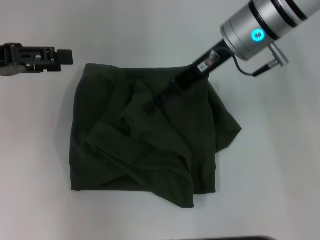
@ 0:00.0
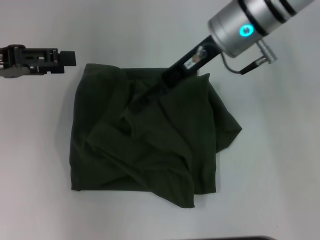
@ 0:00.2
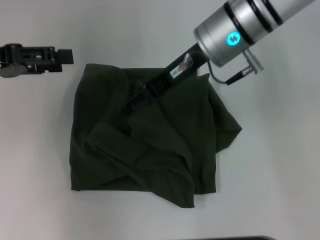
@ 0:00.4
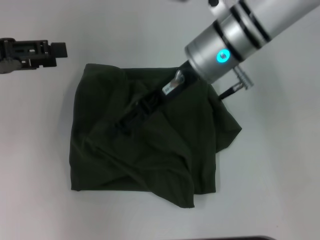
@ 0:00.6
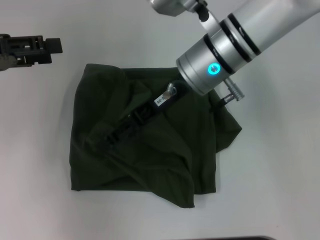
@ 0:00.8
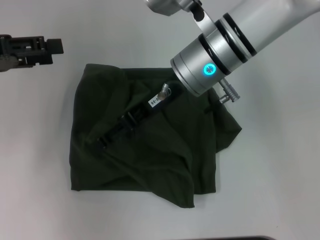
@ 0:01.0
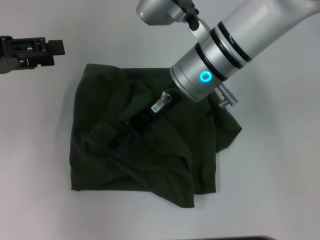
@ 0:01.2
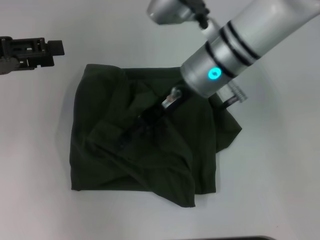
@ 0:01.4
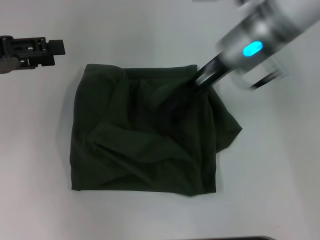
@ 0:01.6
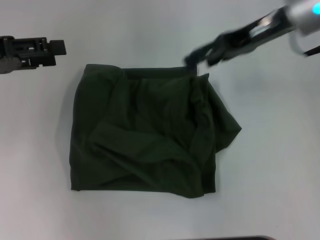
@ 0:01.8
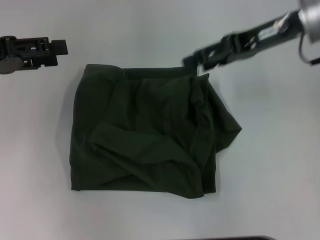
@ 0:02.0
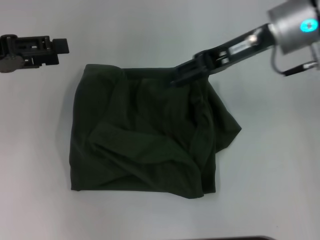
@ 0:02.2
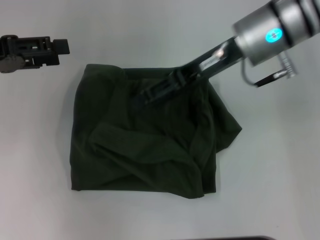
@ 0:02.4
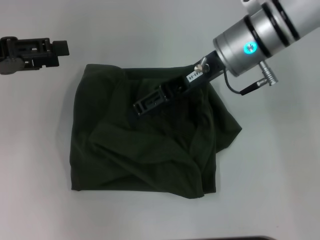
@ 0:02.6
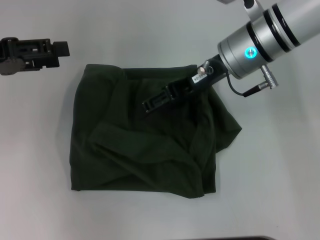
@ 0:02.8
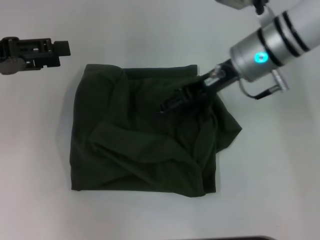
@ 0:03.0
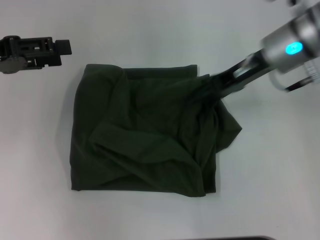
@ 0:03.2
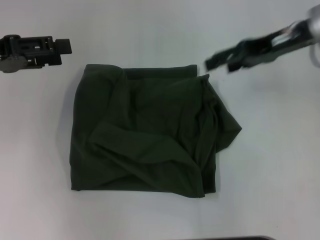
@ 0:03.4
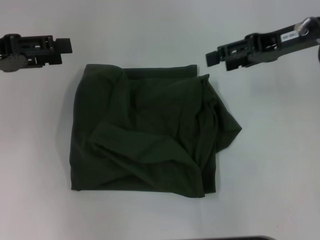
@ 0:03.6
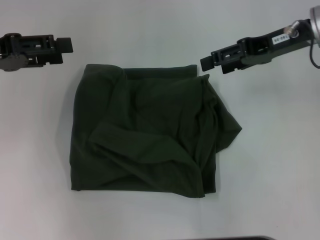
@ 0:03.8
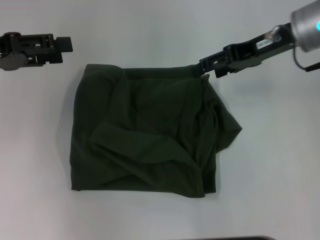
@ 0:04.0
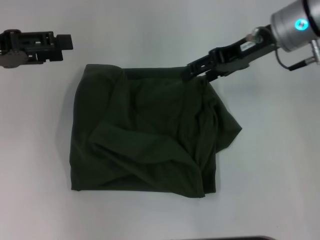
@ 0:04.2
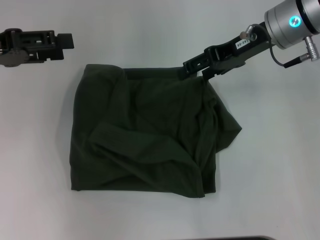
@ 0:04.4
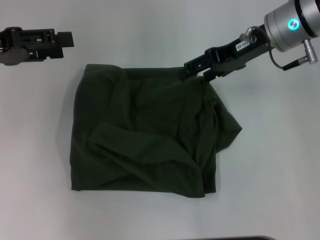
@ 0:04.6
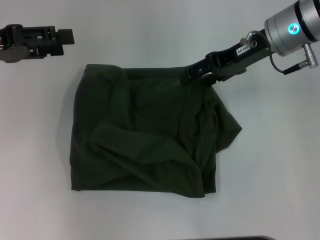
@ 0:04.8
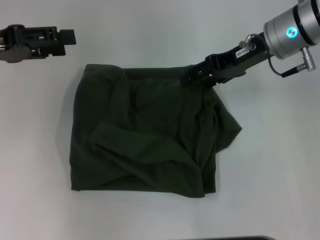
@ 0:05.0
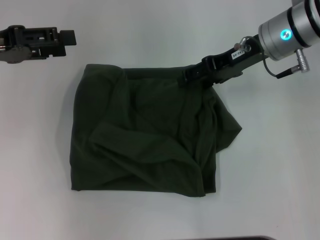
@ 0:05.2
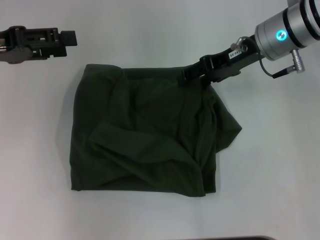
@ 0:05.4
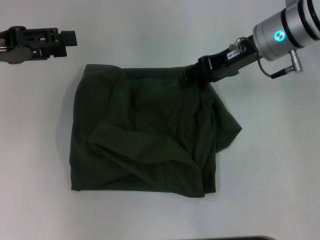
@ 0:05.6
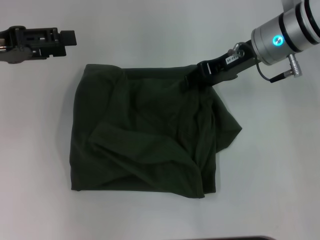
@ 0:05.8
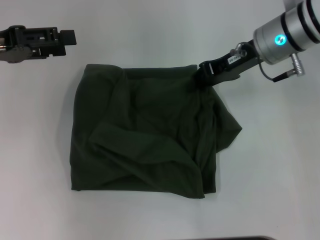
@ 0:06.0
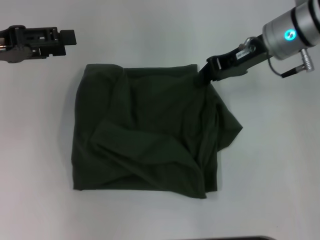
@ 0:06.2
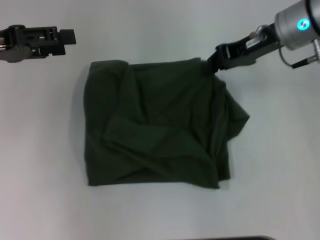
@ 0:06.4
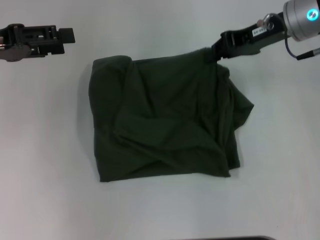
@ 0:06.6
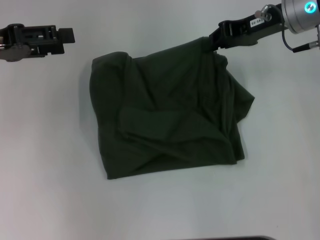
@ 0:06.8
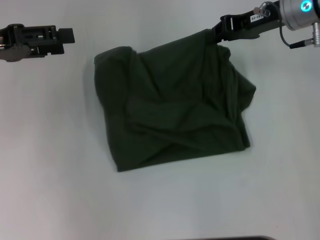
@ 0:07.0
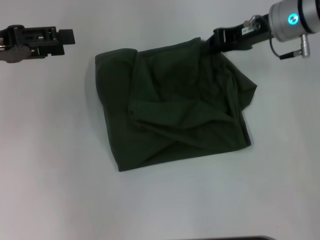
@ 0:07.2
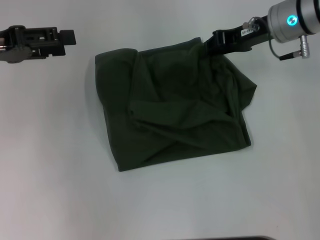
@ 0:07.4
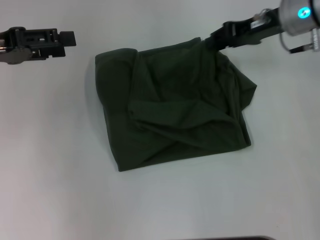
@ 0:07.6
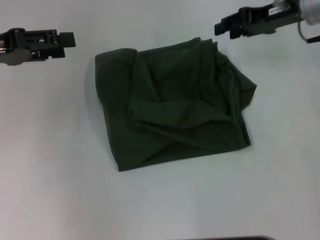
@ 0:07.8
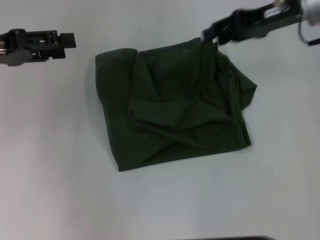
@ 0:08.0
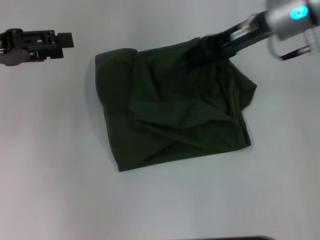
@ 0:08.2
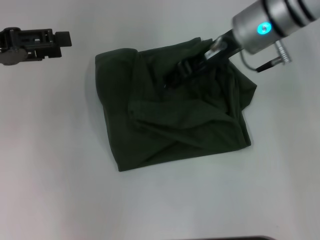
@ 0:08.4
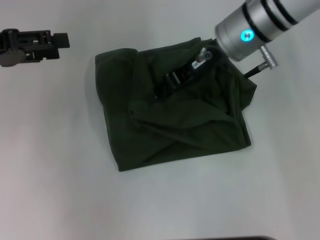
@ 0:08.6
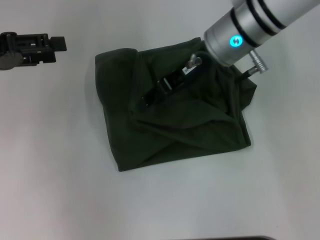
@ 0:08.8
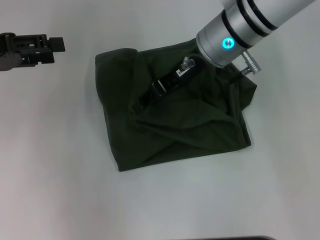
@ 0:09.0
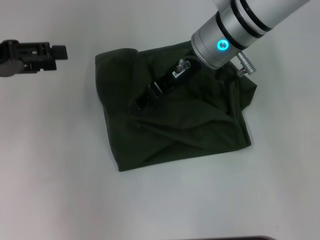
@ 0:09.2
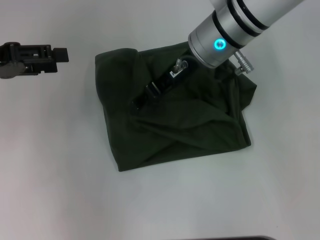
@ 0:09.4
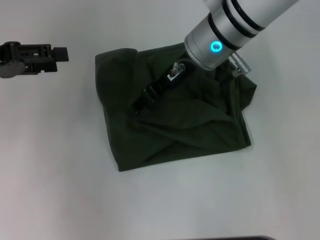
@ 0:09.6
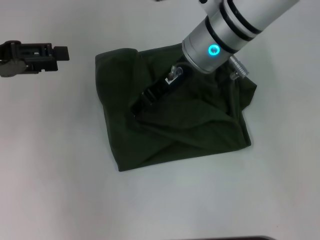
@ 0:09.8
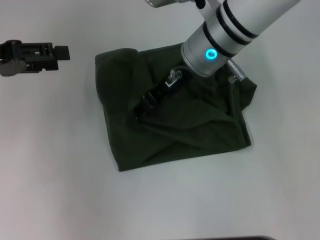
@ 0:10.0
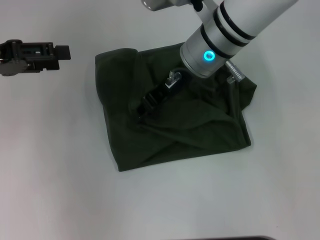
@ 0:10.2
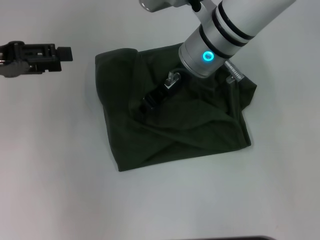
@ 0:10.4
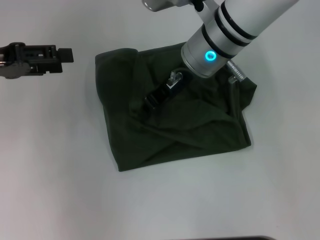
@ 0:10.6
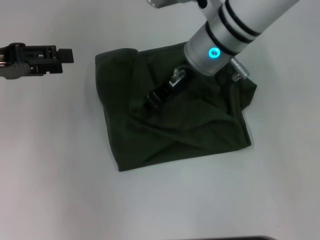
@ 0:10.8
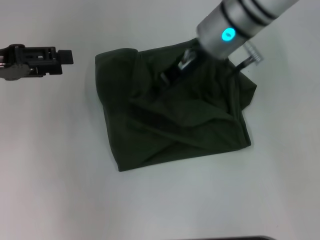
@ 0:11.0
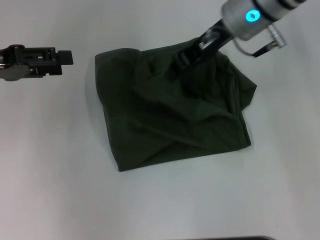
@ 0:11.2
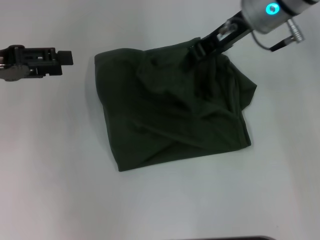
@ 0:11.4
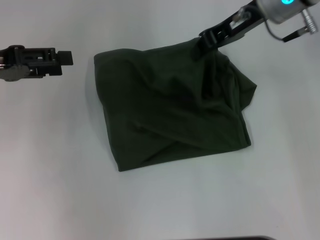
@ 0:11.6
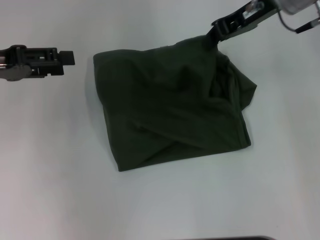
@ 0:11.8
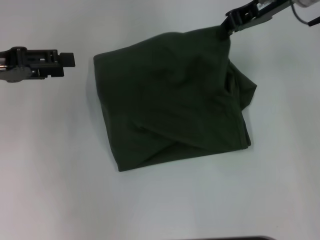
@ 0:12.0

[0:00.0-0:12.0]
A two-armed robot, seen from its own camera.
0:01.6 to 0:03.0: The right gripper goes to the right and returns, about 10 cm each way.
0:04.4 to 0:06.0: The right gripper closes up.
0:07.6 to 0:09.0: The right gripper goes approximately 15 cm to the left, and opens up.
0:09.0 to 0:10.4: The grippers make only small movements.
0:10.4 to 0:12.0: The right gripper moves to the right and upward, roughly 15 cm, and closes up.

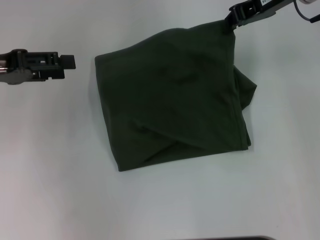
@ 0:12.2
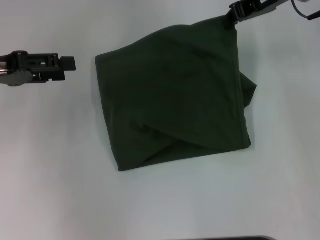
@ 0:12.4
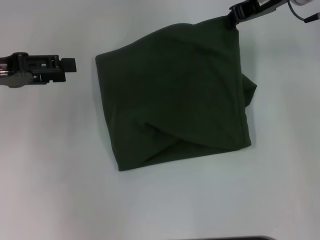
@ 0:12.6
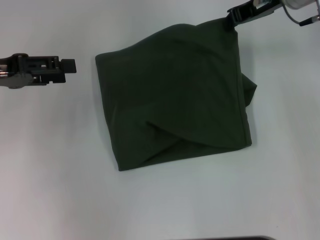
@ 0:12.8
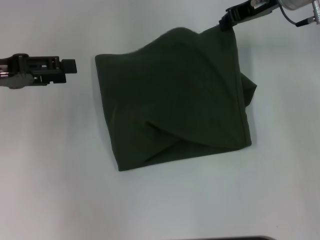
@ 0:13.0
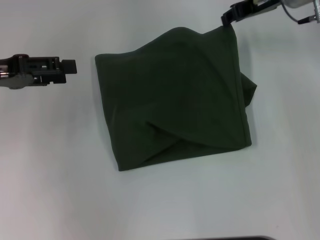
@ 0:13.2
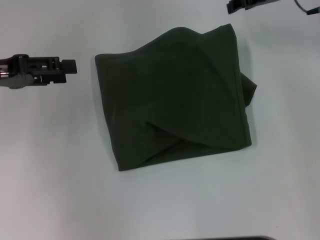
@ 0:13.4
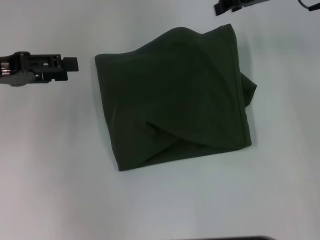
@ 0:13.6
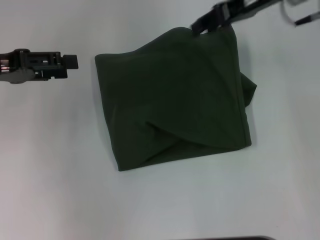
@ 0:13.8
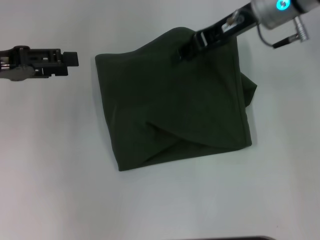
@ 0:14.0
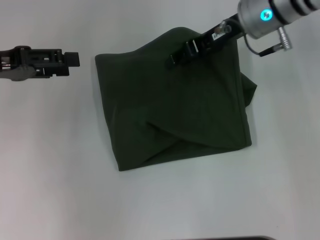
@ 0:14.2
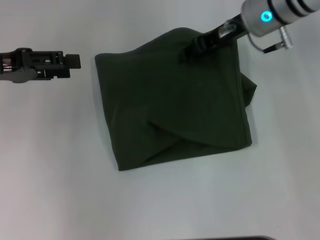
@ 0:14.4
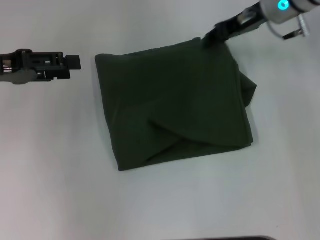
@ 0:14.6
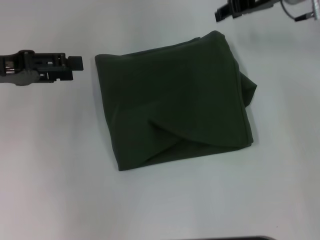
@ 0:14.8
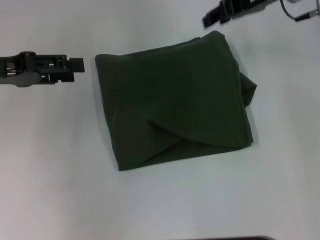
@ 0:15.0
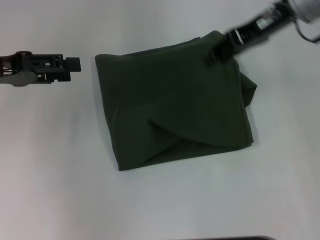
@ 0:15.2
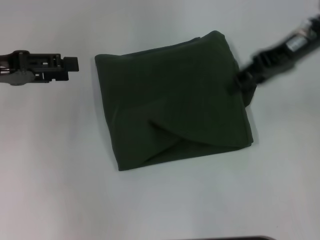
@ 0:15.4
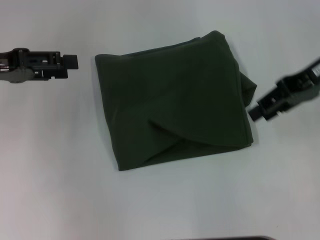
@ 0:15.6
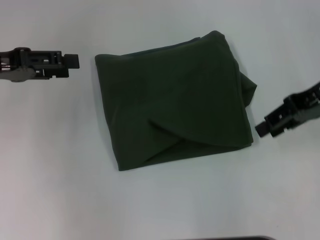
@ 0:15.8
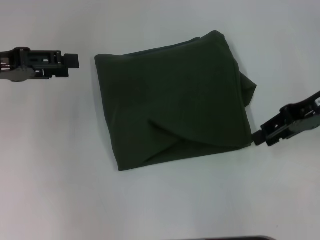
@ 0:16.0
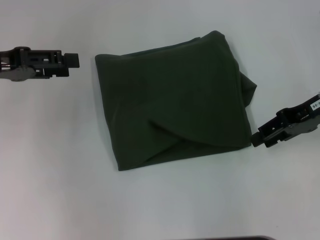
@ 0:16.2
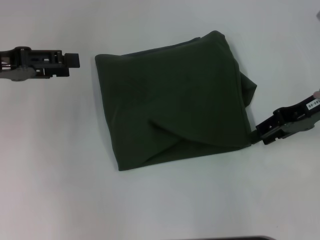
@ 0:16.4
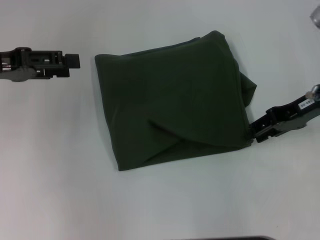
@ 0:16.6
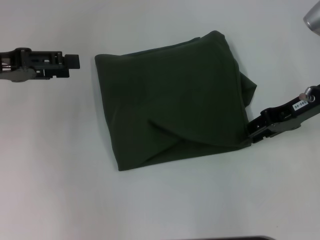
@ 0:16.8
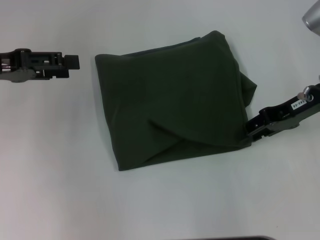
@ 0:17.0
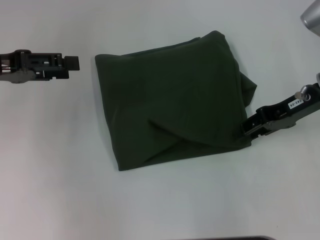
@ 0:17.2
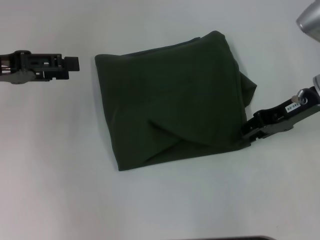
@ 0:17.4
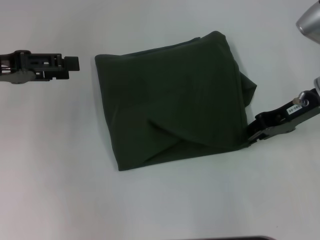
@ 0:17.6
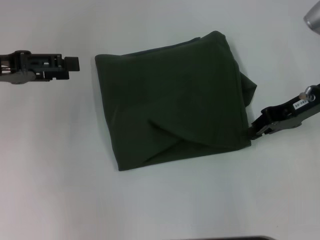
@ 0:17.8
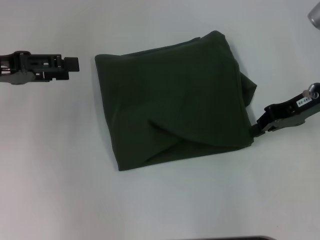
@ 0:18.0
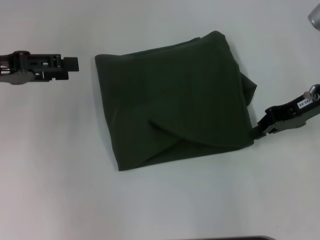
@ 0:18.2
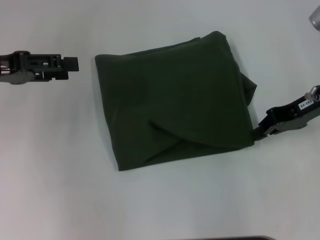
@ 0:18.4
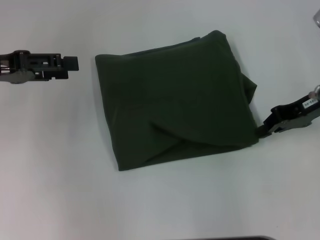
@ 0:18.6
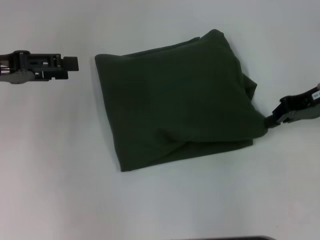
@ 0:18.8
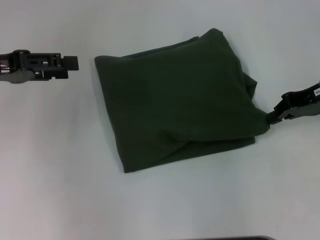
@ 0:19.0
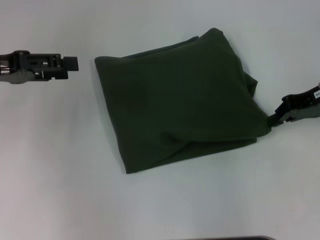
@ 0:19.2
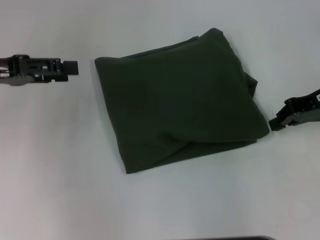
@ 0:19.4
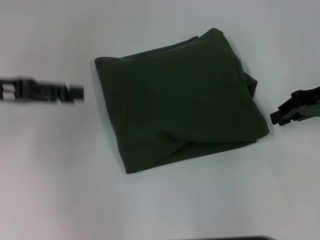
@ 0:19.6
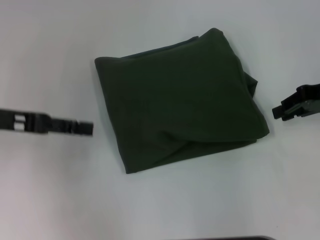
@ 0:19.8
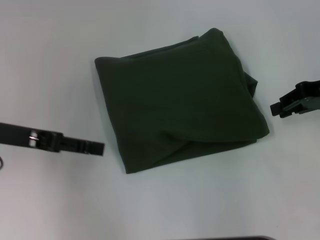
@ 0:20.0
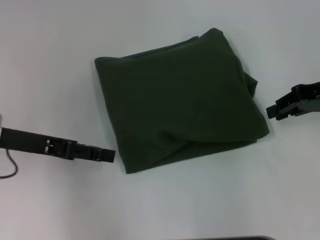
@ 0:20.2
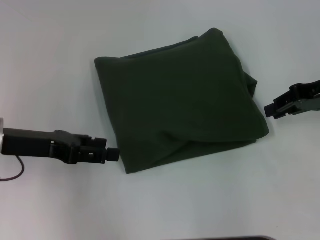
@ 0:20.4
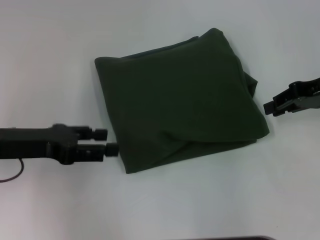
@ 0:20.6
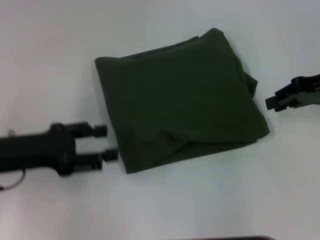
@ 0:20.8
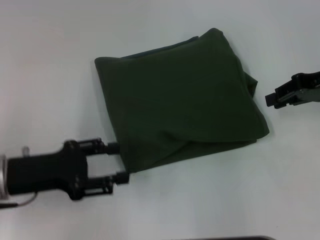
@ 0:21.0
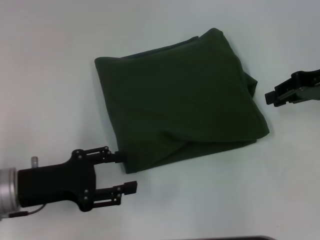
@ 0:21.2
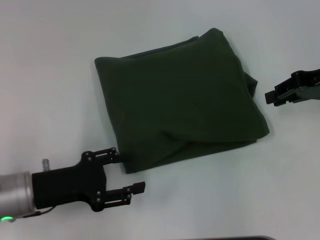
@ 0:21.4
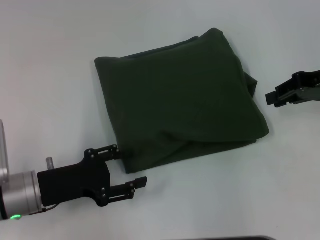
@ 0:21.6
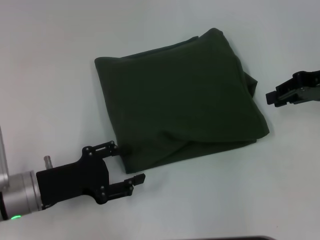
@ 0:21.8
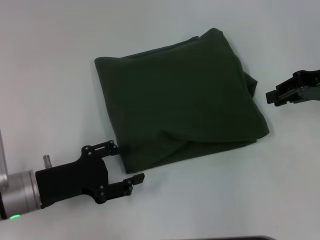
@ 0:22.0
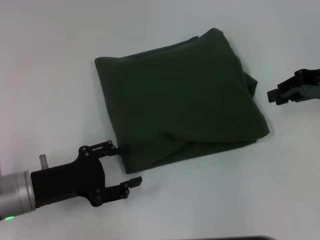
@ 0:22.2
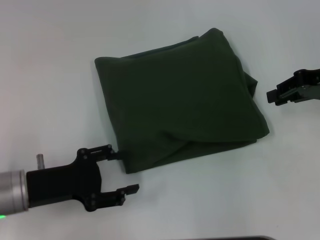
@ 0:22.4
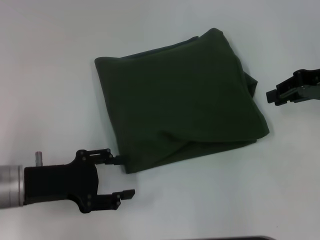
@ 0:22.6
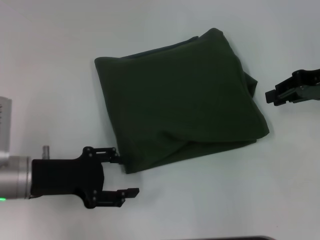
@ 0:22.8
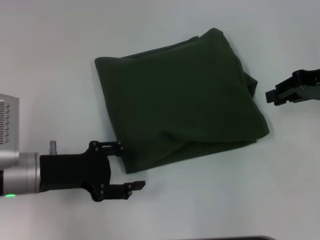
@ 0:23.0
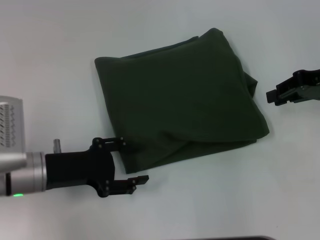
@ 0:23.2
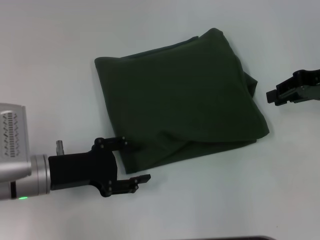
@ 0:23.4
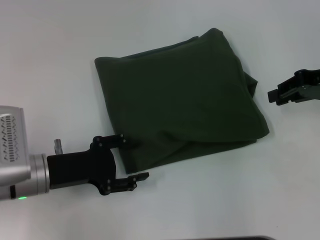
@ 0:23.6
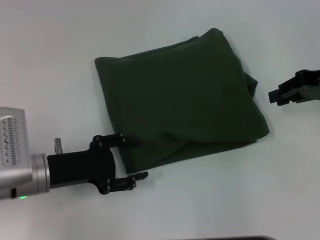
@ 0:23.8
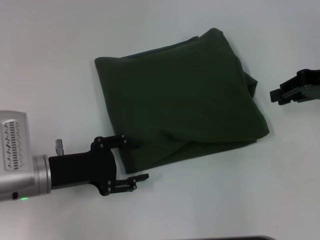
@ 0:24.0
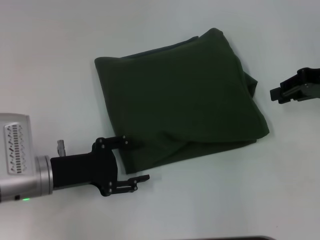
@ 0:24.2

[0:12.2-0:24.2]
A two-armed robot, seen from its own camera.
0:12.2 to 0:13.8: The right gripper opens up.
0:15.2 to 0:16.6: The right gripper goes approximately 15 cm downward, to the right and backward.
0:16.6 to 0:18.2: The right gripper closes up.
0:18.2 to 0:19.8: The grippers move only a little.
0:19.8 to 0:21.2: The left gripper shifts approximately 10 cm downward and backward.
0:21.2 to 0:22.6: The grippers stay close to where they were, moving slightly.
0:22.6 to 0:24.2: The grippers move only a little.
